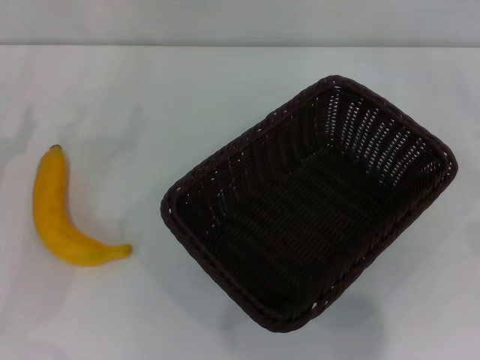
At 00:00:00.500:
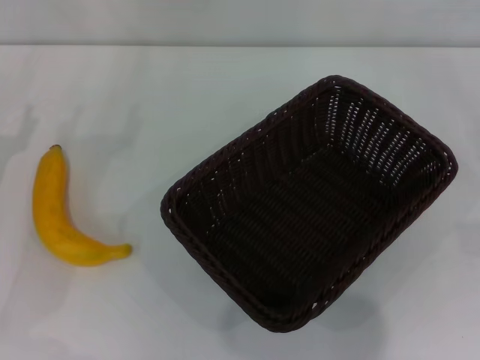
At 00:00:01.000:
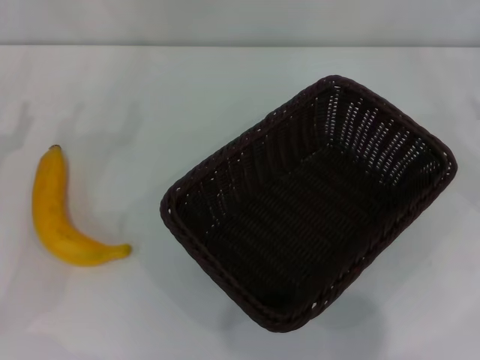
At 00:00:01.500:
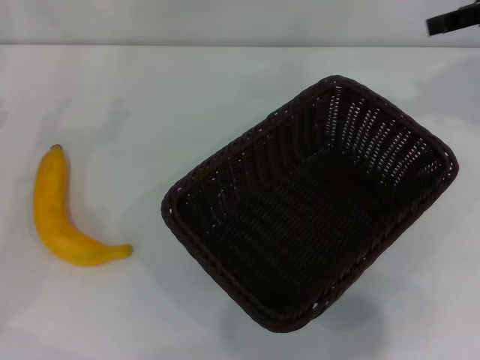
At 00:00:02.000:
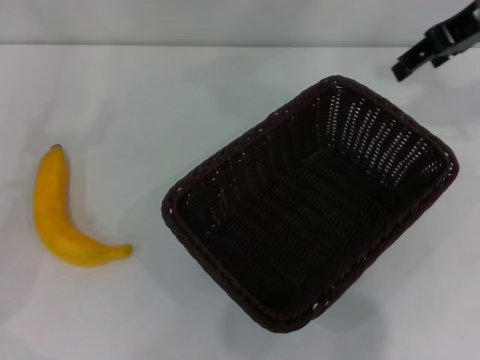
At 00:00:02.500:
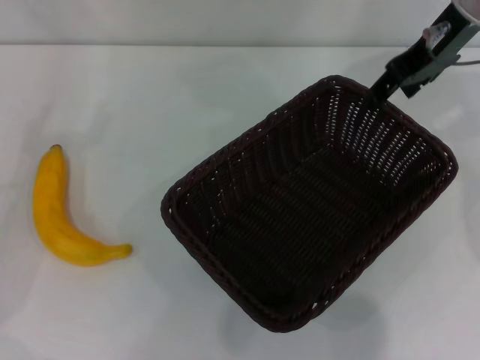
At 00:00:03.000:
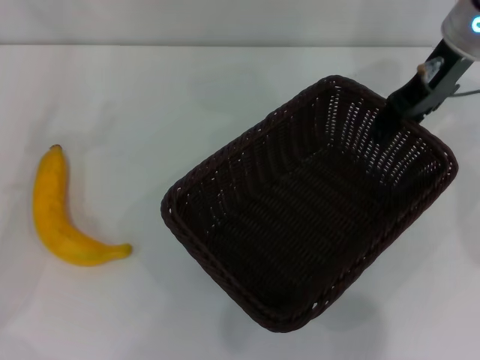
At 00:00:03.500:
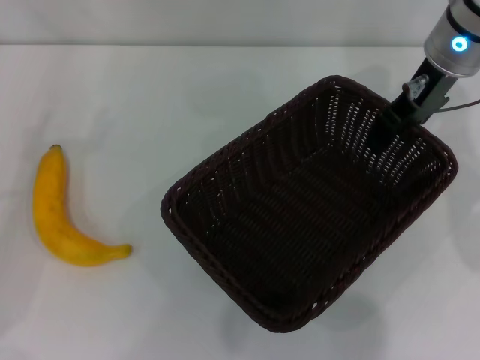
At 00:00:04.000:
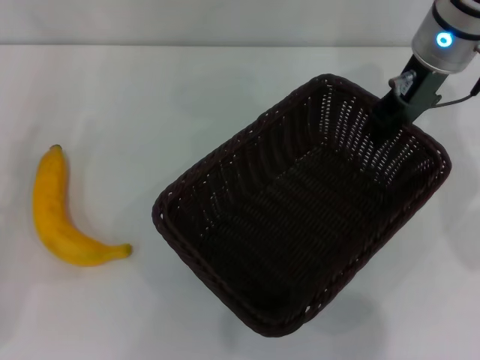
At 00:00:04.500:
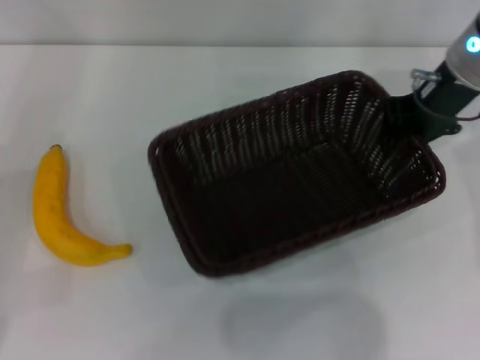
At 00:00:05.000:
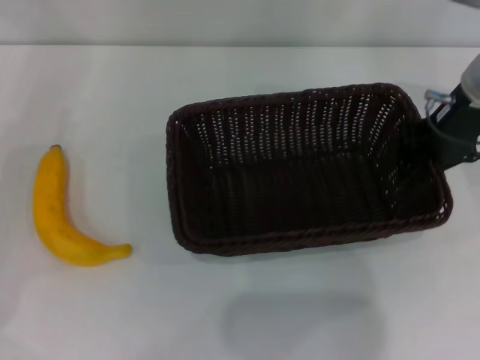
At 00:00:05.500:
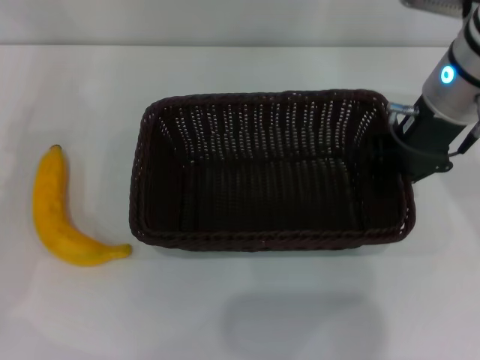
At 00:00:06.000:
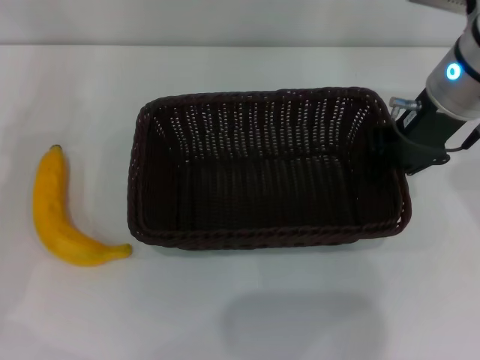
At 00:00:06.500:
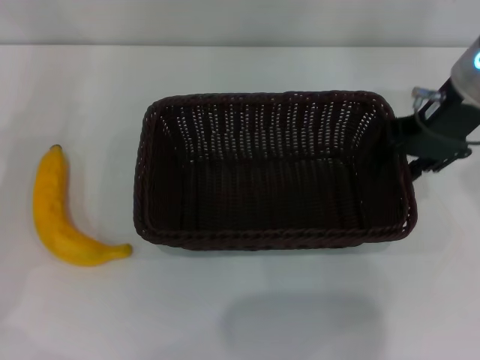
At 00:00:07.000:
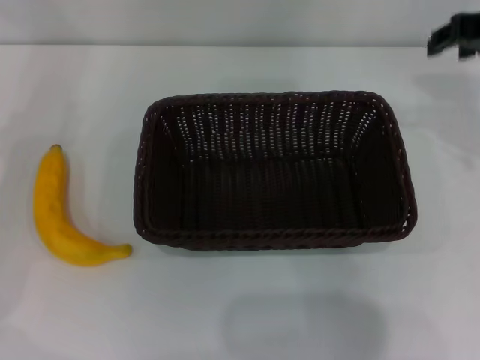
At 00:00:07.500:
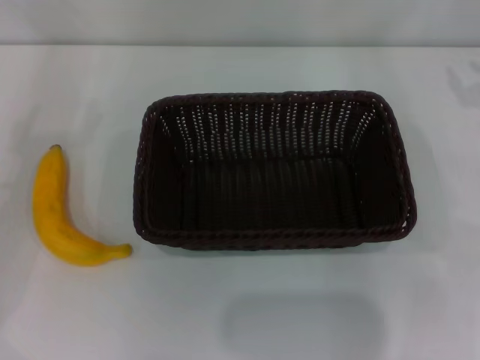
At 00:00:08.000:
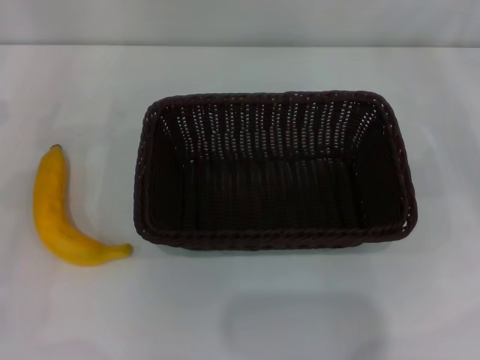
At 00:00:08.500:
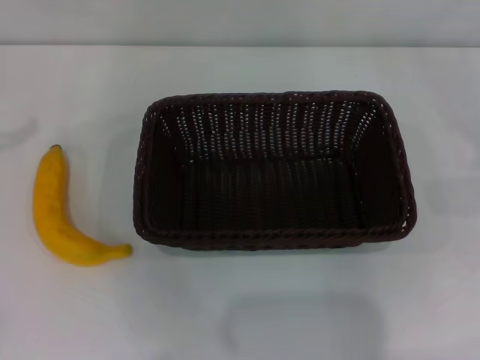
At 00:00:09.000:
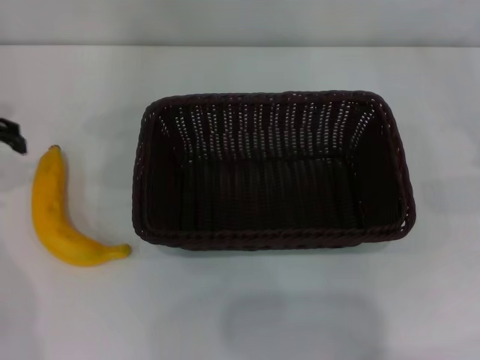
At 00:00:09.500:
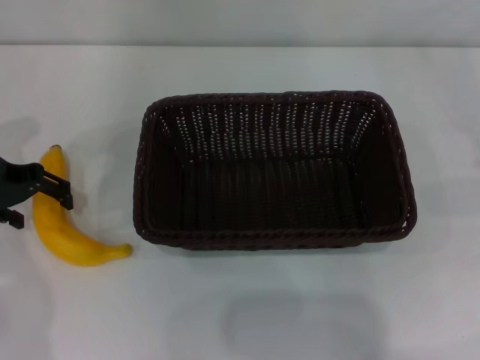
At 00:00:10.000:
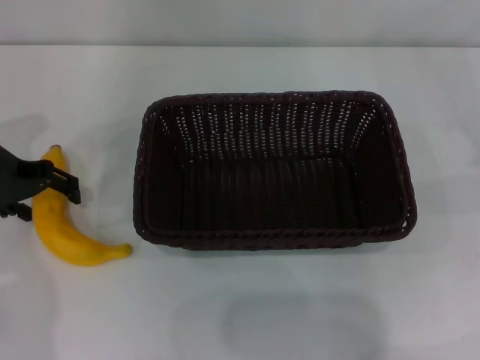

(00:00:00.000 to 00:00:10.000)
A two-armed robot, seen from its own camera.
Step, 00:00:00.000 - 00:00:04.000: Pick up the dark basket with the right gripper.
Step, 00:00:04.500 - 00:00:06.500: Place the dark basket in the center of view with the right gripper.
00:00:00.000 - 00:00:02.000: The right gripper heads upward, to the left and forward, covering some 35 cm.
00:00:02.000 - 00:00:04.000: The right gripper goes some 10 cm to the left and downward, and closes.
00:00:04.000 - 00:00:06.000: The right gripper travels backward by some 5 cm.
00:00:06.000 - 00:00:08.000: The right gripper travels to the right and downward by roughly 25 cm, and opens its fingers.
00:00:08.000 - 00:00:10.000: The left gripper heads to the right and forward, covering approximately 15 cm.

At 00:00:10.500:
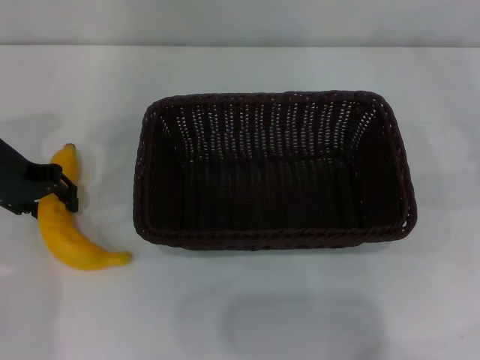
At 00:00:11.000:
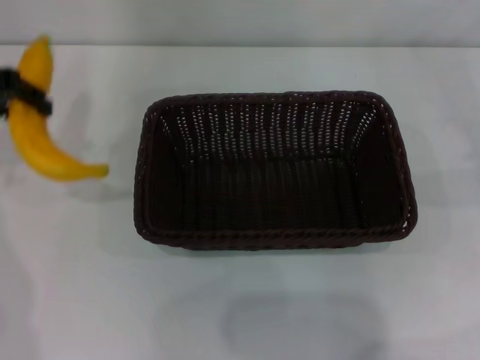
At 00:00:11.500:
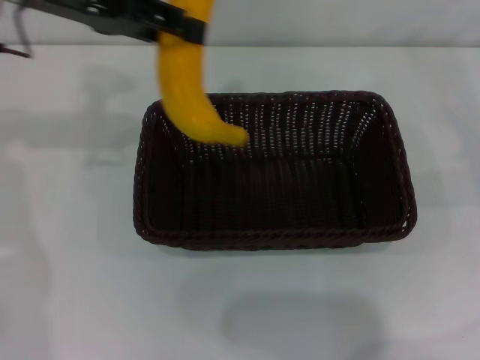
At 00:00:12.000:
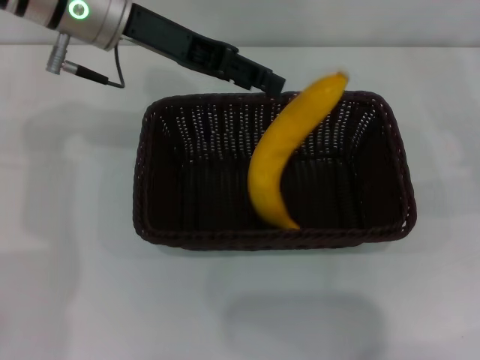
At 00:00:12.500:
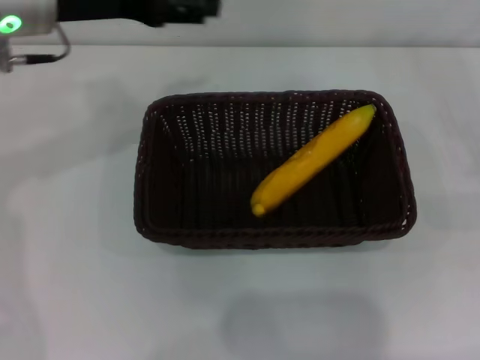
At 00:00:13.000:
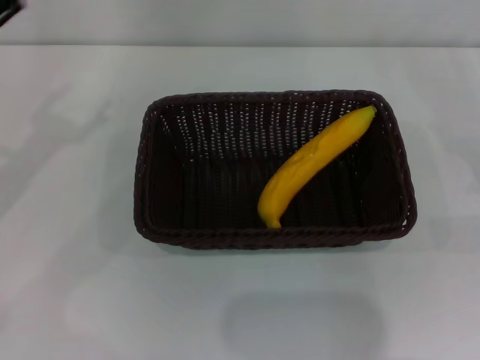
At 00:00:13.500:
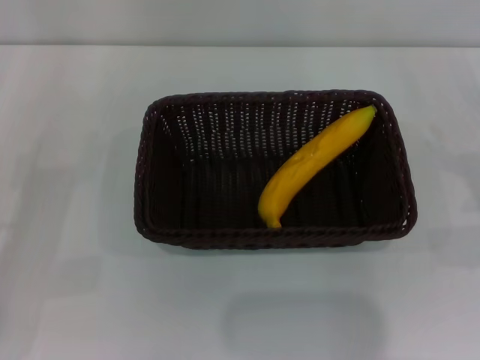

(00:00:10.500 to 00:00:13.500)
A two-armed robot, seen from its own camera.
Step, 00:00:11.000 - 00:00:12.000: Place the banana into the dark basket with the left gripper.
00:00:10.500 - 00:00:12.000: The left gripper heads to the right and upward, covering roughly 15 cm.
00:00:12.000 - 00:00:13.500: The left gripper is displaced to the left, downward and backward by roughly 30 cm, and opens; the right gripper travels backward by roughly 5 cm.

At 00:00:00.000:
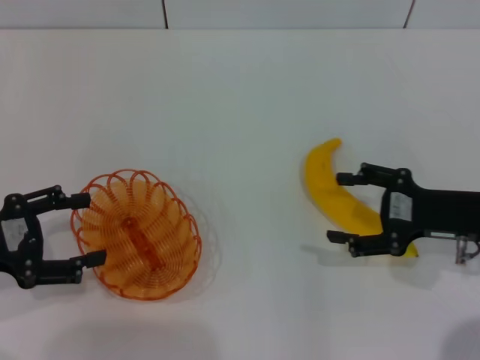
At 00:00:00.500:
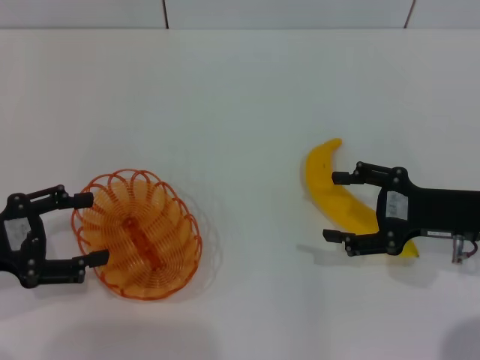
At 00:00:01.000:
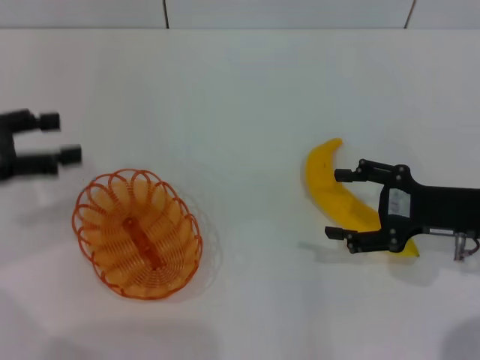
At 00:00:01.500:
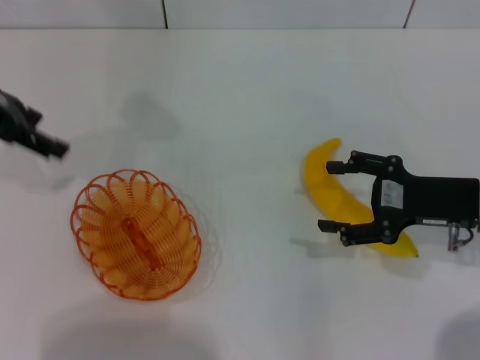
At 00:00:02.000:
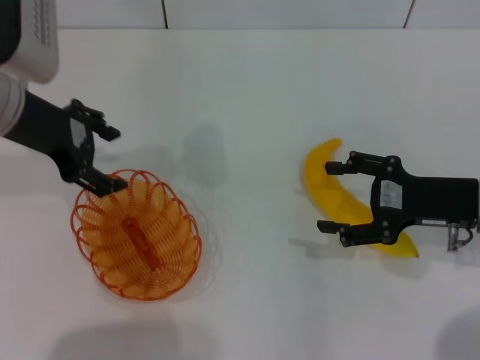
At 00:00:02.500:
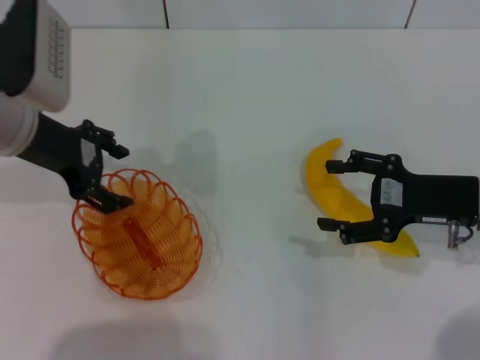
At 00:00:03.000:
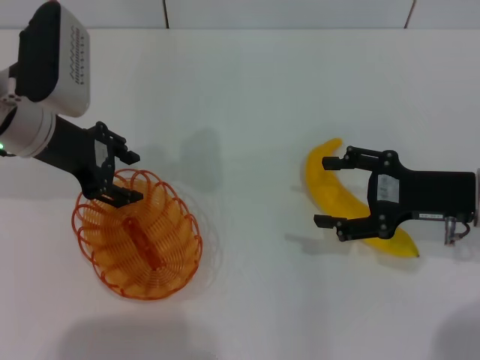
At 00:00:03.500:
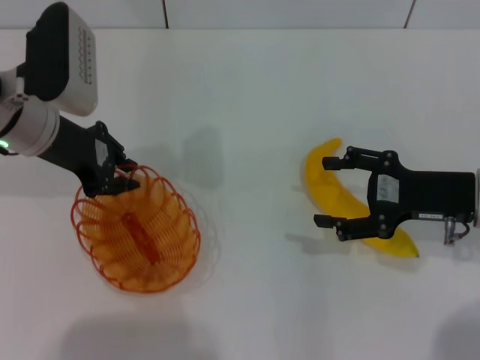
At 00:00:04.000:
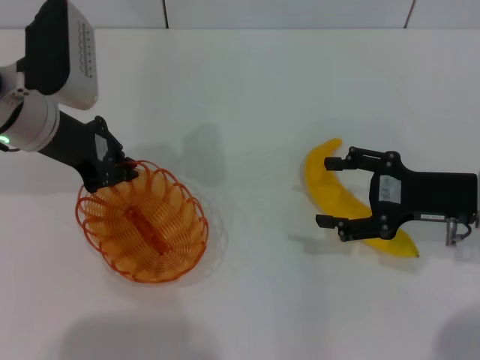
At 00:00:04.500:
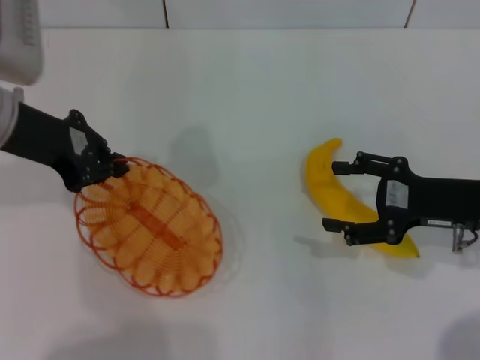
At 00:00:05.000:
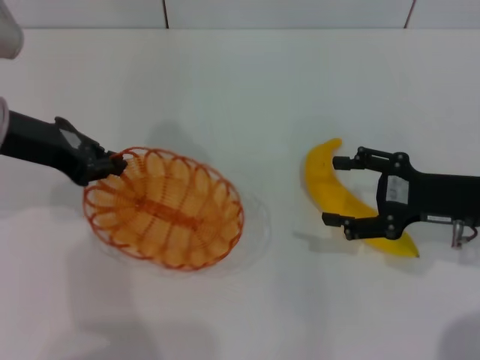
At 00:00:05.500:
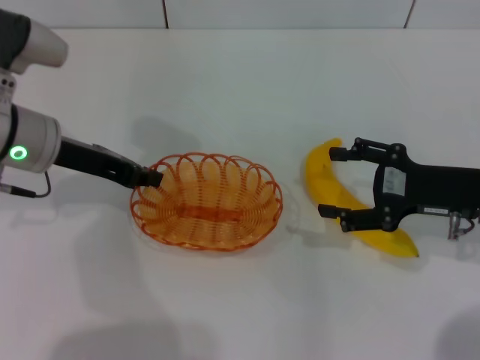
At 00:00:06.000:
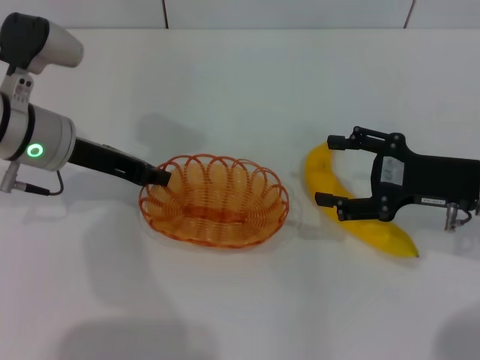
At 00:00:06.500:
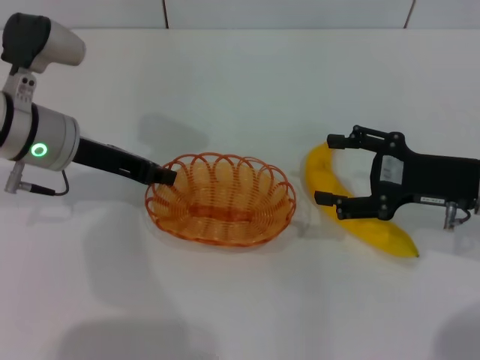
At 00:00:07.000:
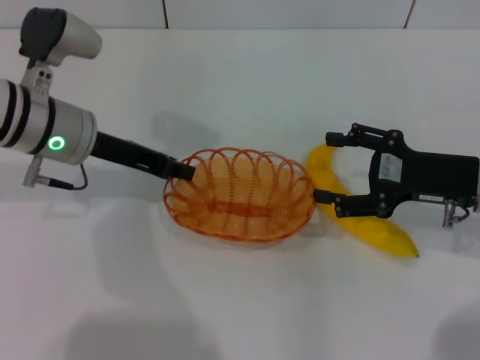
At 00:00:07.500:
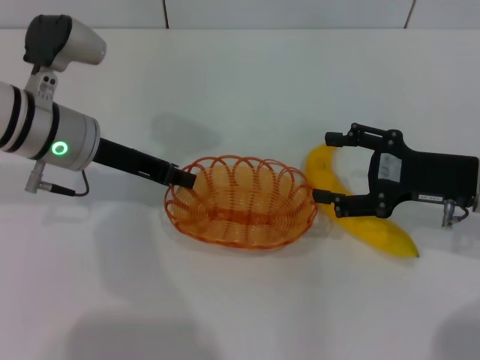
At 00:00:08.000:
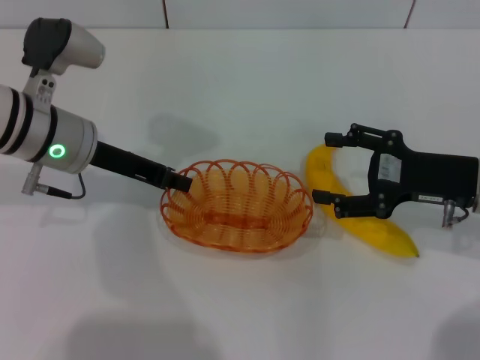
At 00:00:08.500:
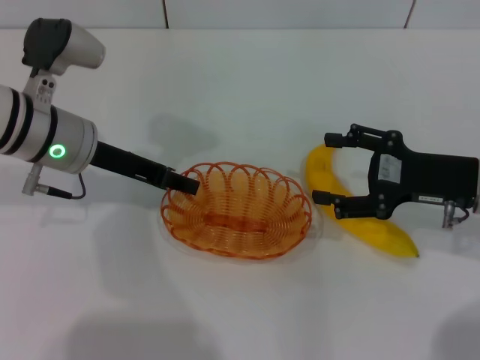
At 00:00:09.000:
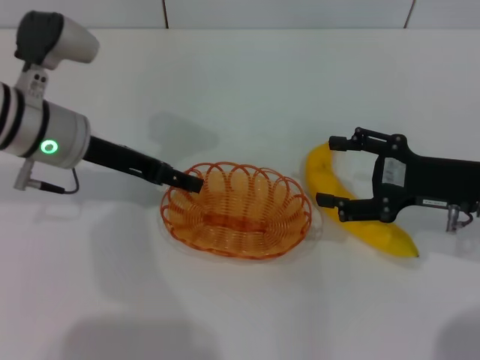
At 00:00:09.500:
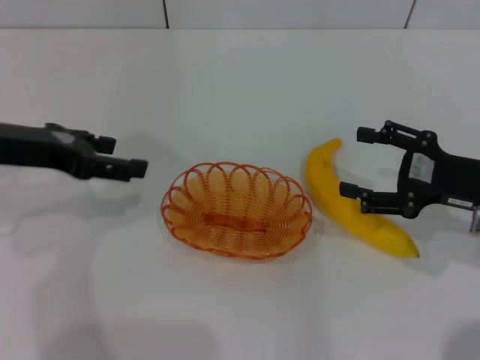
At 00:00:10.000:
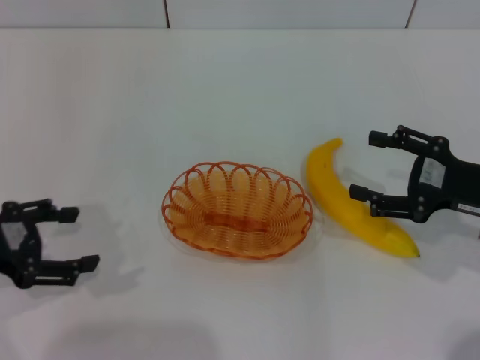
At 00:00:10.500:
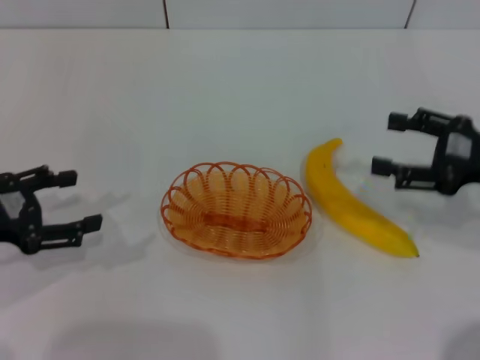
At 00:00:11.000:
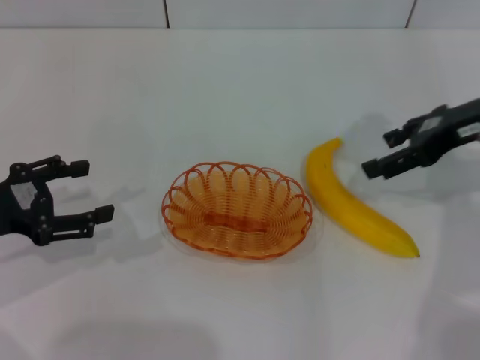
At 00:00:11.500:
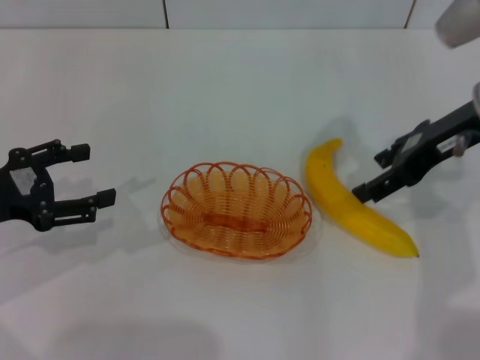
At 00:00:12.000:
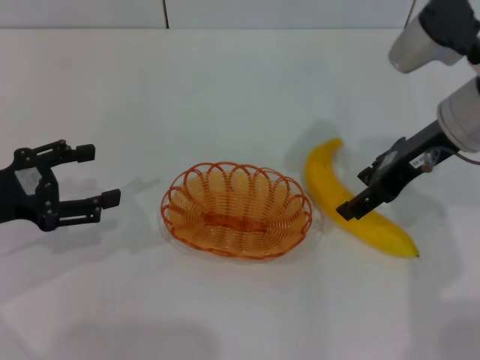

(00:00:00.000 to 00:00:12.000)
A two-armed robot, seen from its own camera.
Step, 00:00:00.000 - 00:00:04.500: Pick up the basket with the left gripper.
Step, 00:00:05.000 - 00:00:09.000: Place the basket in the center of view with the left gripper.
00:00:00.000 - 00:00:02.000: The left gripper moves forward, to the right and upward, about 20 cm.
00:00:02.000 - 00:00:04.000: The left gripper closes up.
00:00:06.000 - 00:00:08.000: The grippers make only small movements.
00:00:08.000 - 00:00:10.000: The left gripper moves to the left and backward, roughly 20 cm, and opens its fingers.
00:00:10.000 - 00:00:12.000: The right gripper is displaced to the left, upward and forward by roughly 15 cm.
